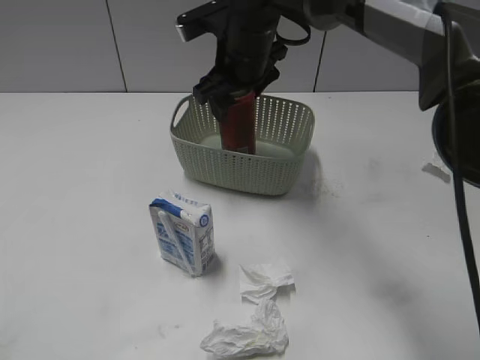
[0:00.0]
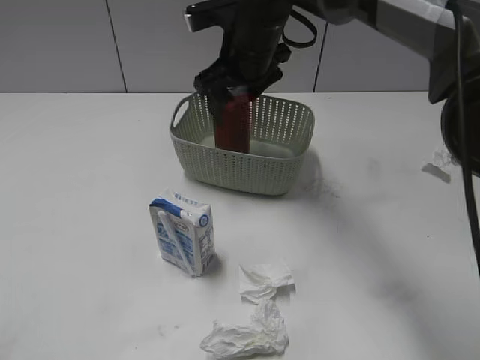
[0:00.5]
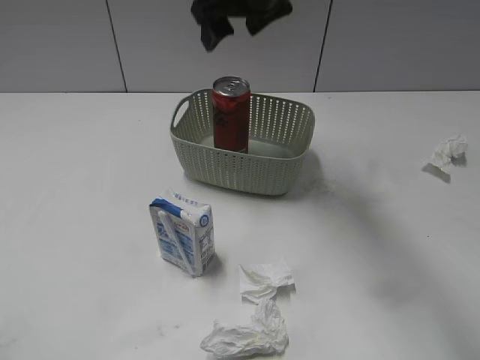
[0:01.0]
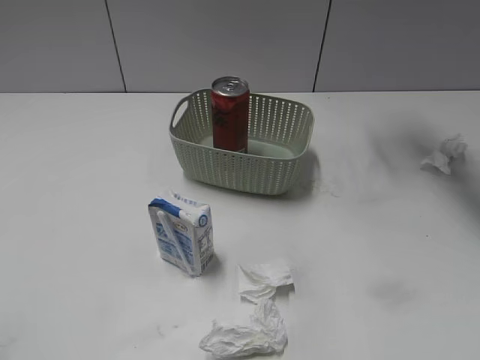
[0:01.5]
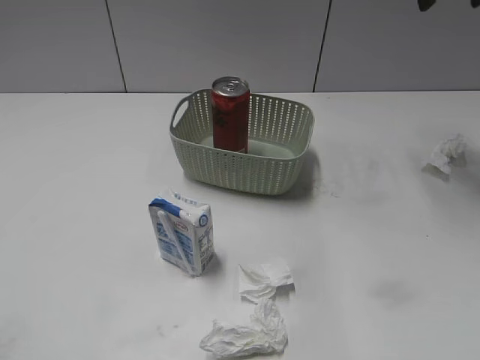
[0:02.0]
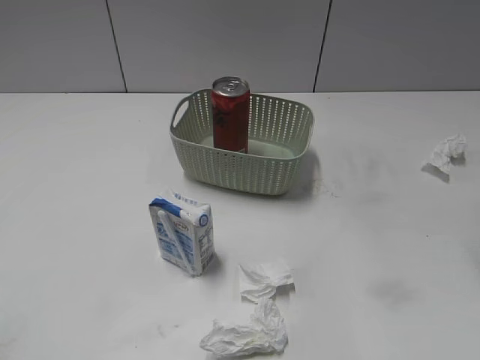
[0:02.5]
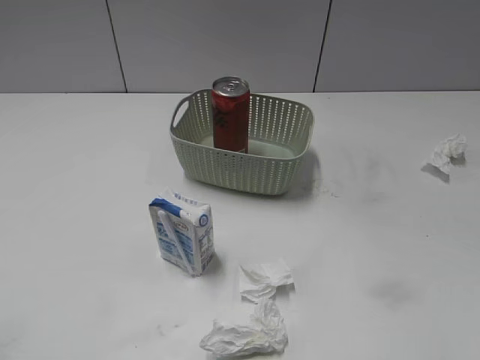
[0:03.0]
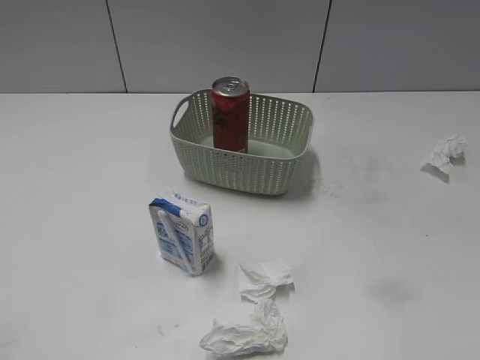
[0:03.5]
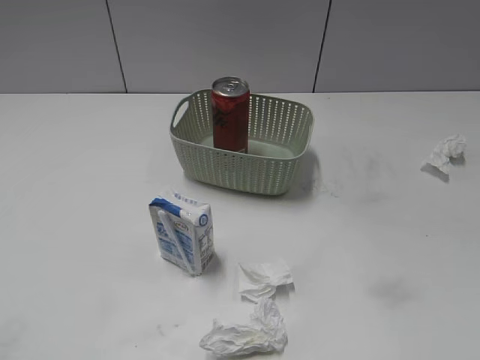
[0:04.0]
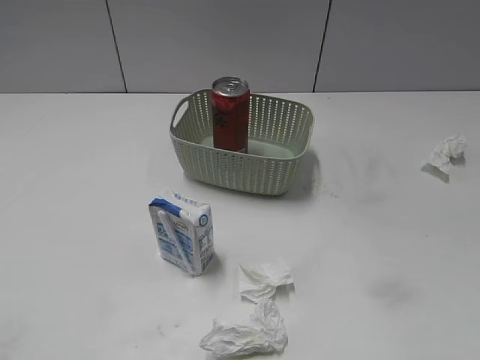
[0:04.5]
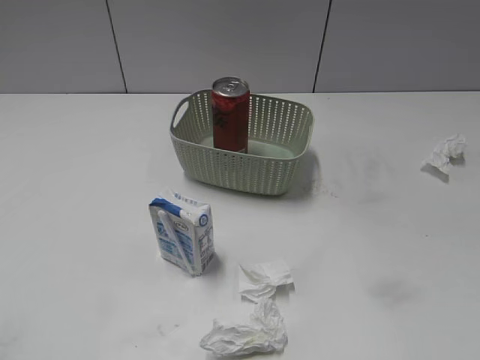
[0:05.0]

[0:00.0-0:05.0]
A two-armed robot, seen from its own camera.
0:00.0 to 0:02.5: The right gripper moves to the right, backward and upward, some 35 cm.

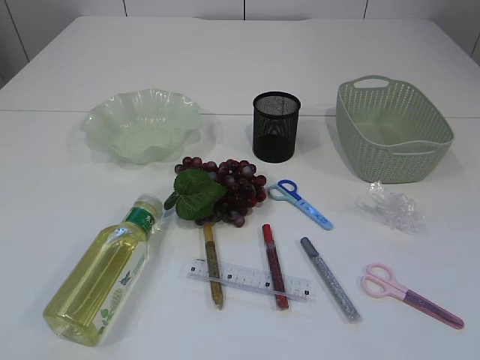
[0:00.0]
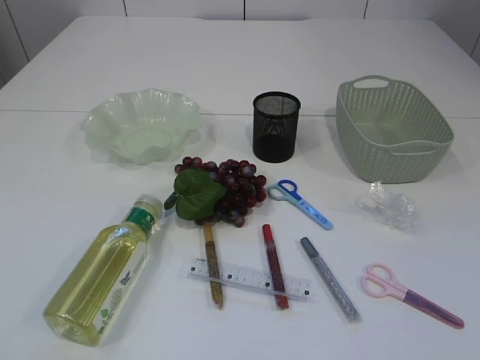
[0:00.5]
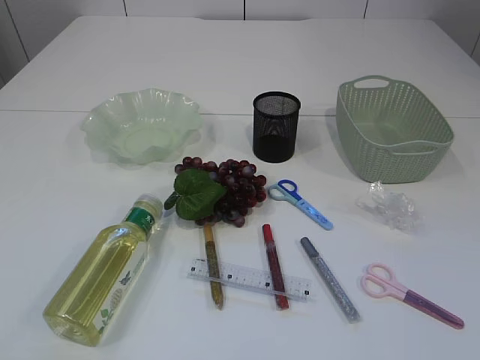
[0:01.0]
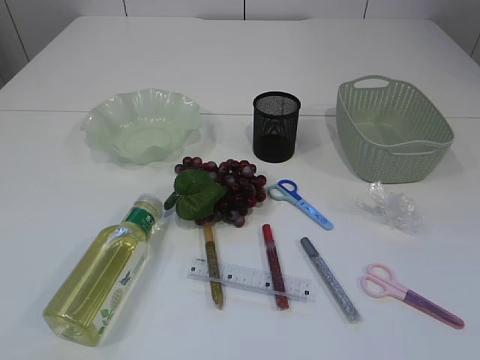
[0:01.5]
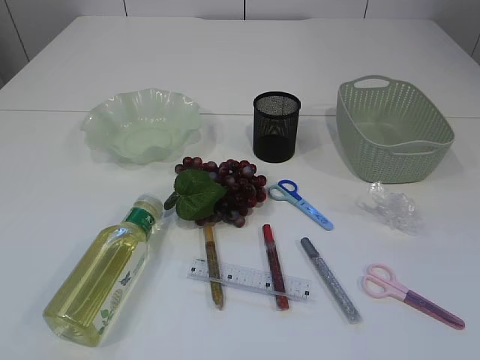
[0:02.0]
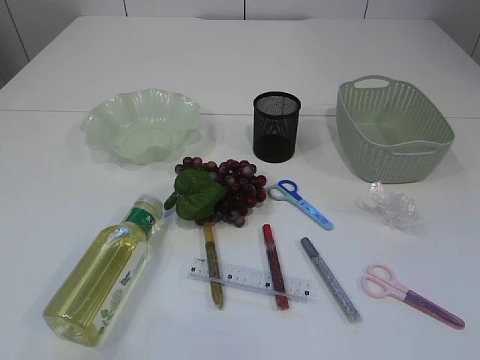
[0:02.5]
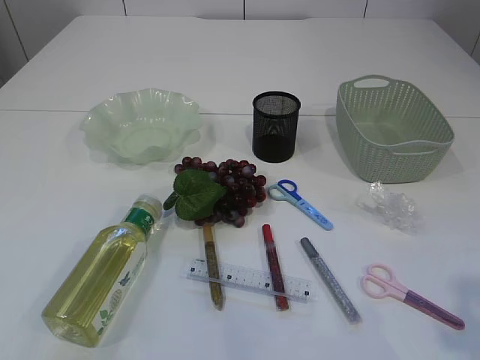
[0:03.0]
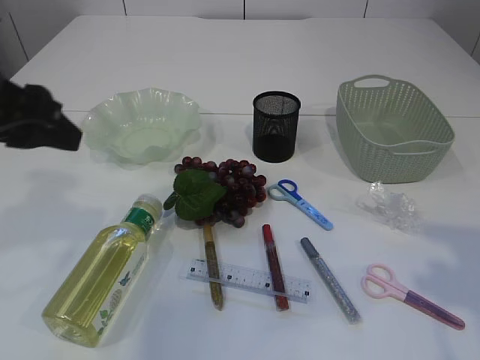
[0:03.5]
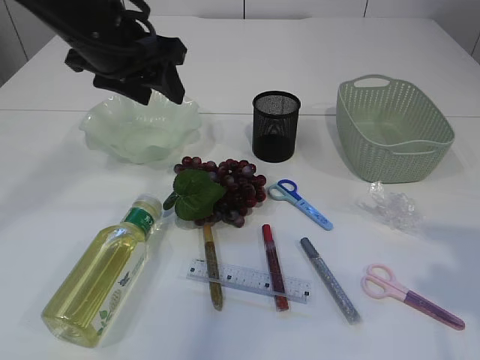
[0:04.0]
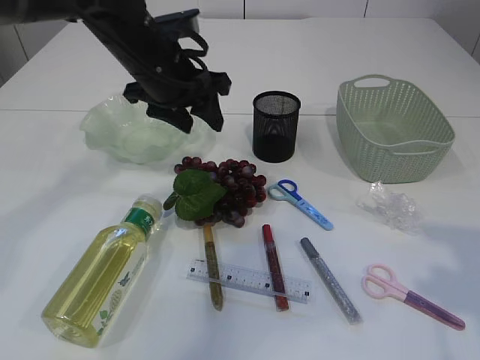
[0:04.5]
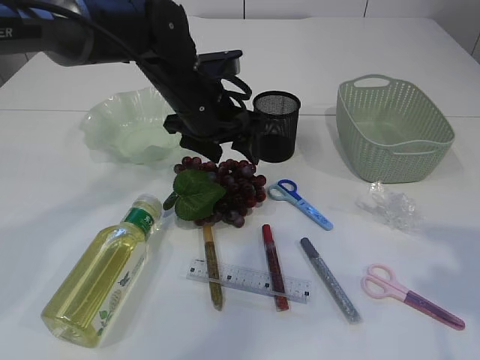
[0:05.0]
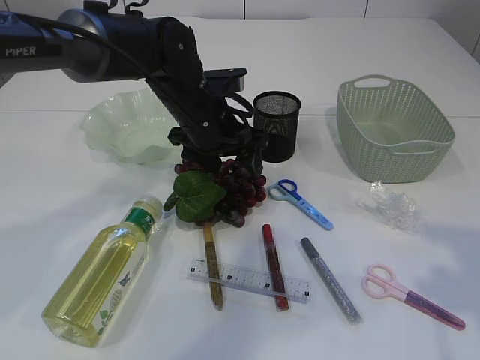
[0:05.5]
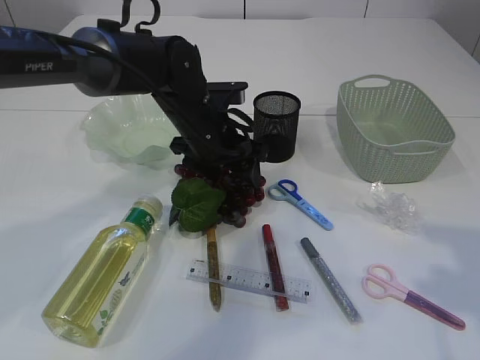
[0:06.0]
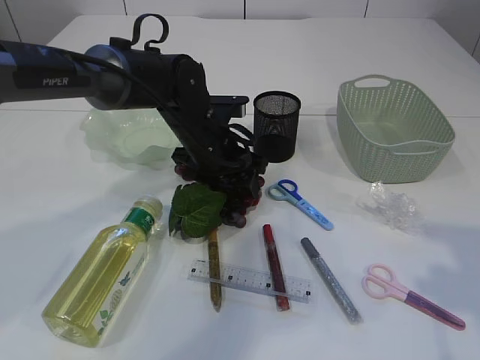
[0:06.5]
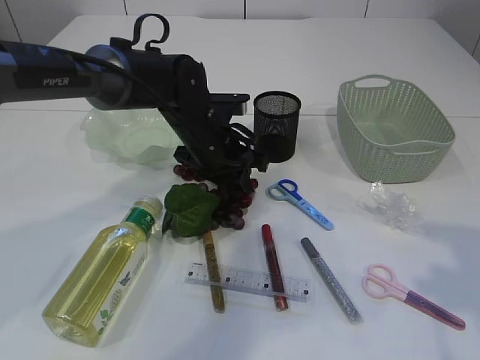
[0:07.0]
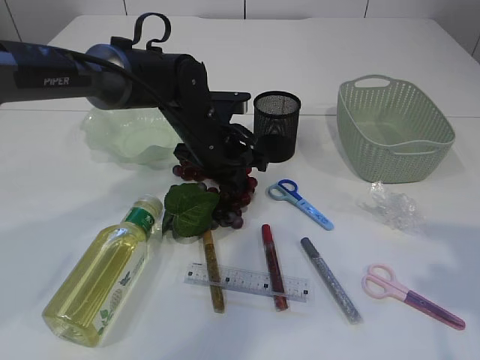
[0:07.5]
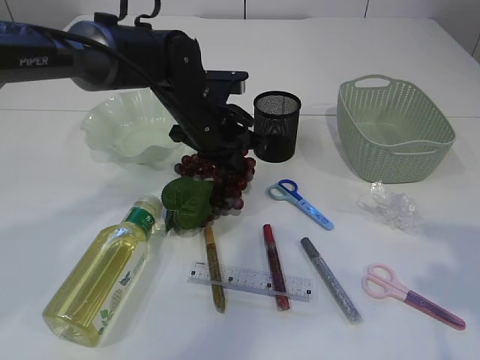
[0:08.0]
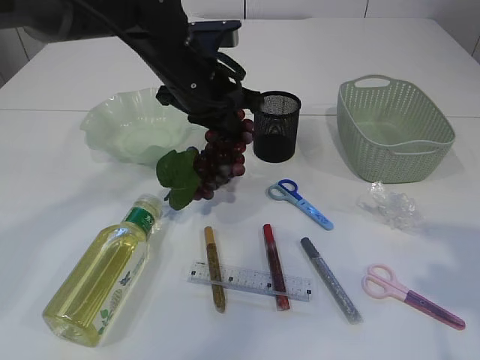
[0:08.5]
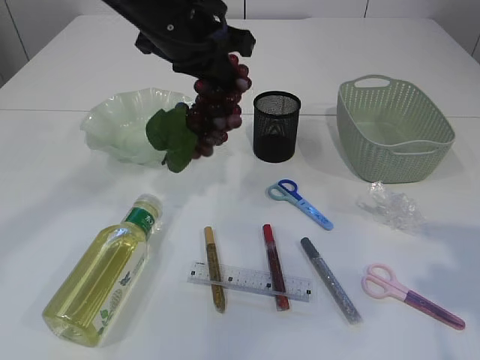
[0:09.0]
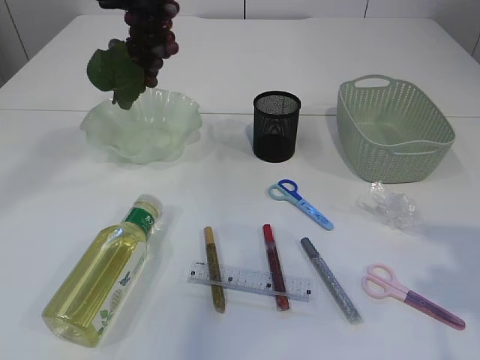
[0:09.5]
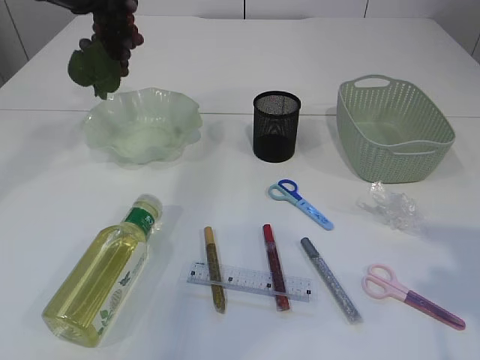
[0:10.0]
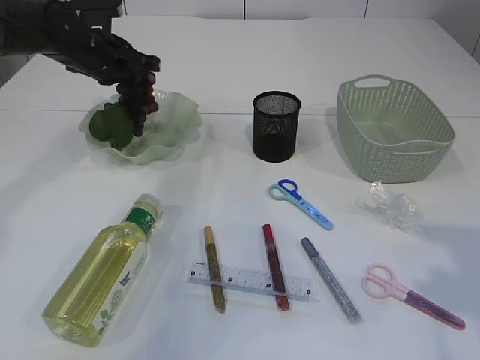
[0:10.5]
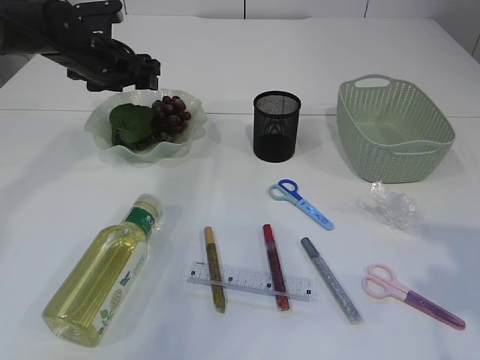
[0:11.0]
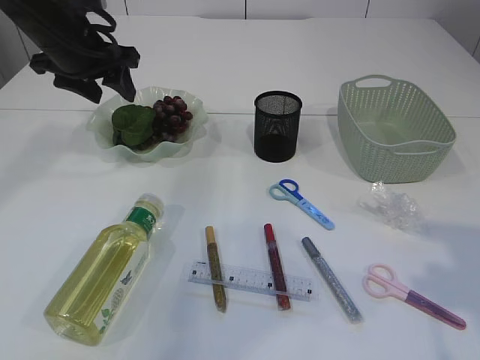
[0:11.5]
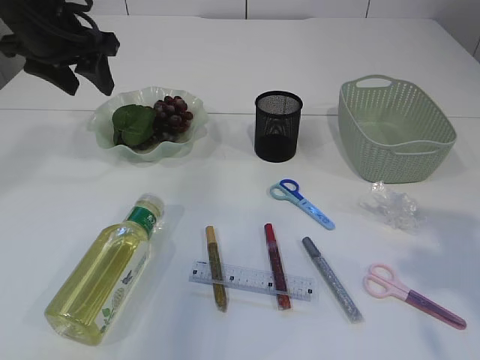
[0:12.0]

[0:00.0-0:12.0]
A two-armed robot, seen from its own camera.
Step, 0:00.0 to 0:08.5: Pick up the grapes.
Step, 0:09.0 to 0:11.5: Place the grapes in the plate.
0:02.0 to 0:04.0: The left gripper shifts roughly 40 cm forward and to the right, while the right gripper goes some 15 cm forward.
0:04.0 to 0:06.0: The left gripper shifts roughly 15 cm downward and to the right.
0:06.0 to 0:08.0: The left gripper closes its fingers.
0:08.0 to 0:10.0: The left gripper heads to the left and upward, covering some 20 cm.
0:10.0 to 0:12.0: The left gripper reaches some 10 cm downward, then returns, and opens its fingers.

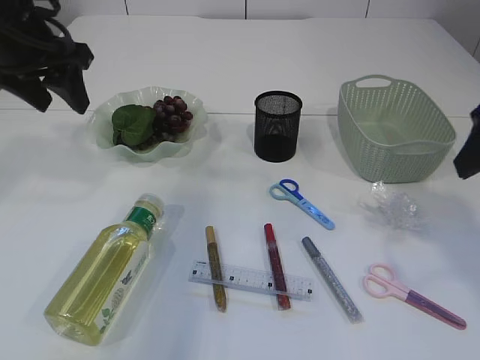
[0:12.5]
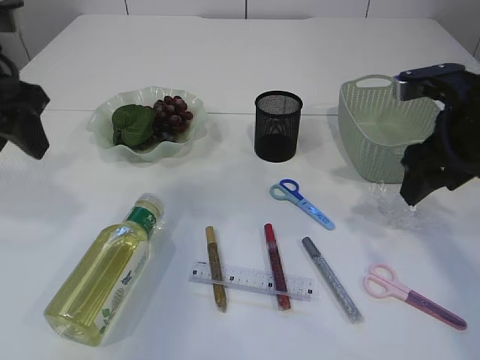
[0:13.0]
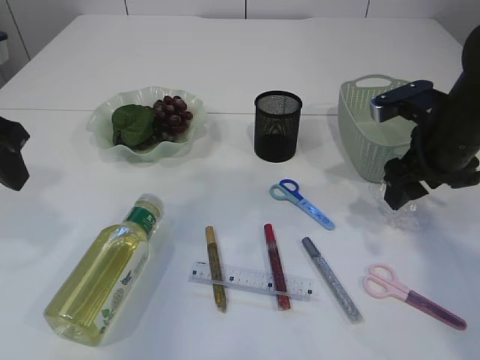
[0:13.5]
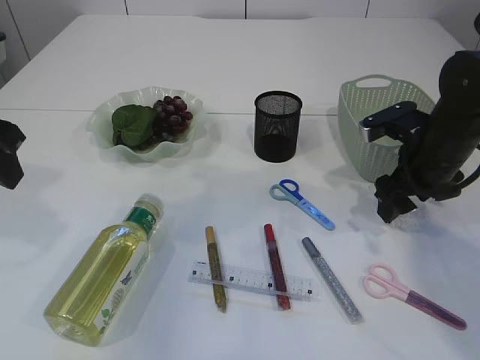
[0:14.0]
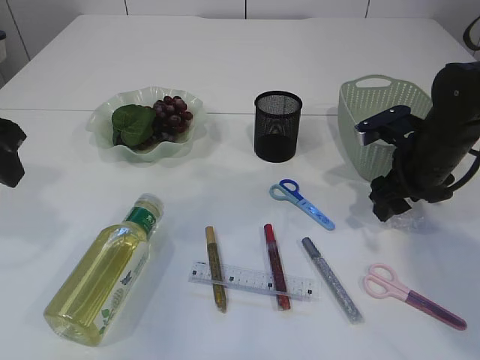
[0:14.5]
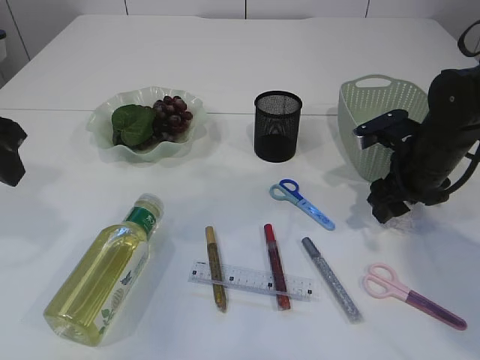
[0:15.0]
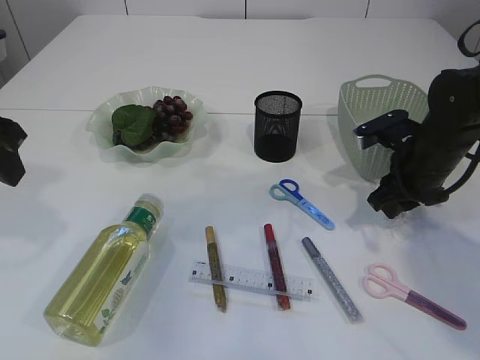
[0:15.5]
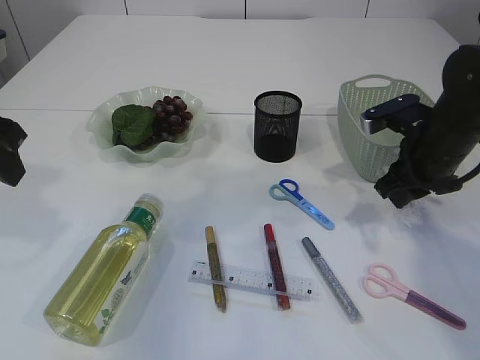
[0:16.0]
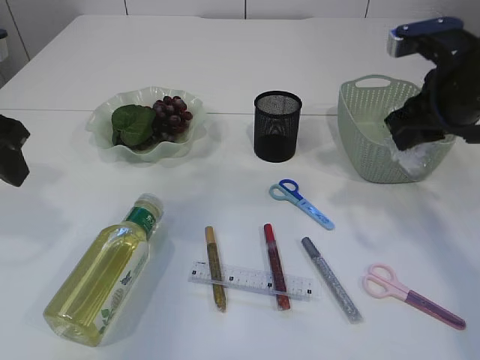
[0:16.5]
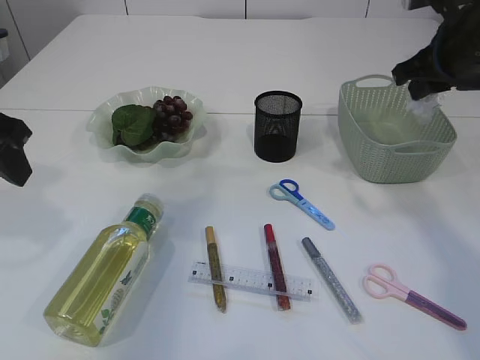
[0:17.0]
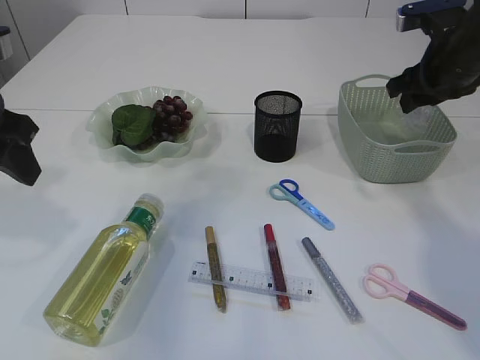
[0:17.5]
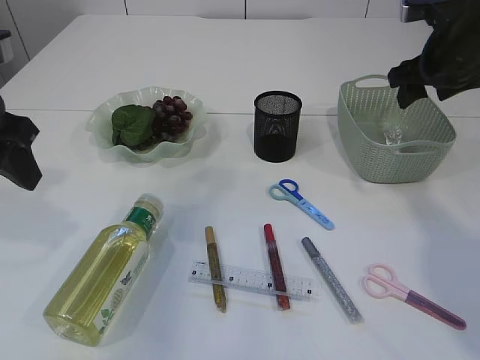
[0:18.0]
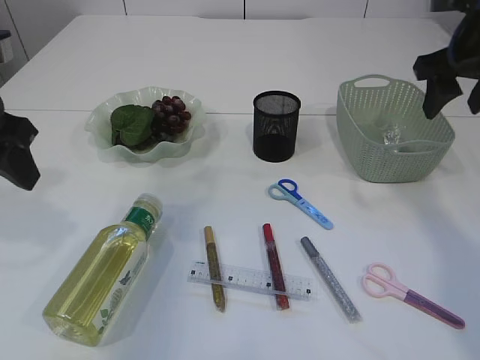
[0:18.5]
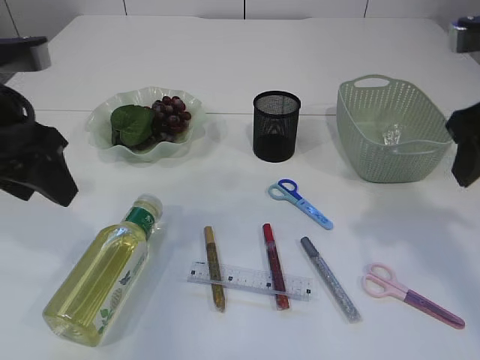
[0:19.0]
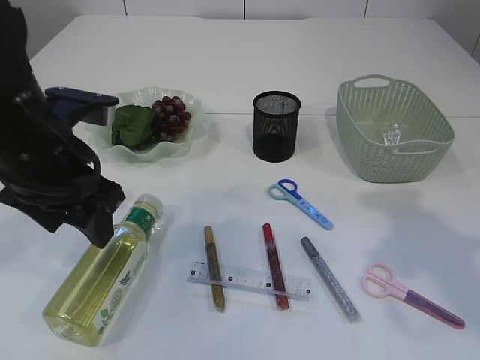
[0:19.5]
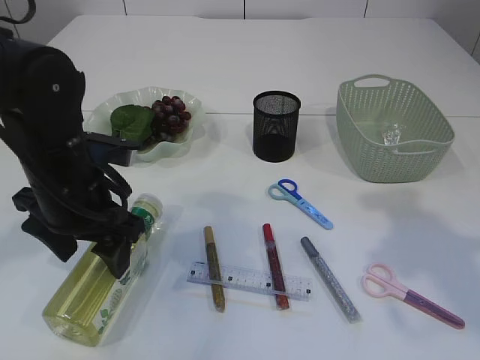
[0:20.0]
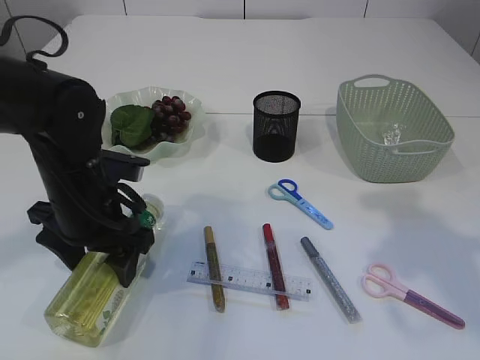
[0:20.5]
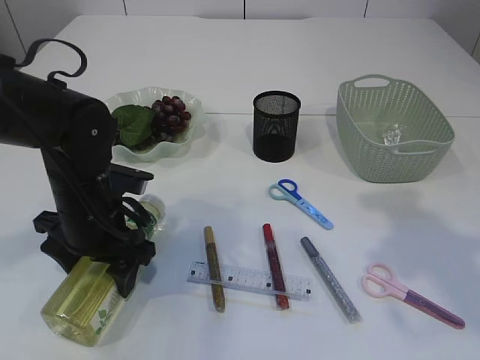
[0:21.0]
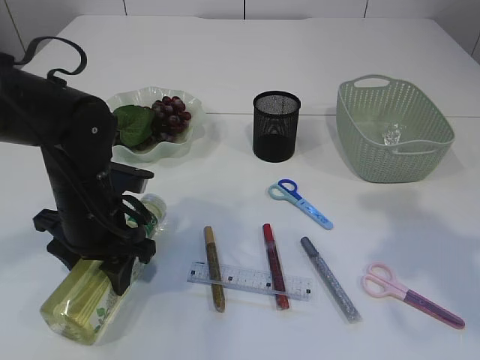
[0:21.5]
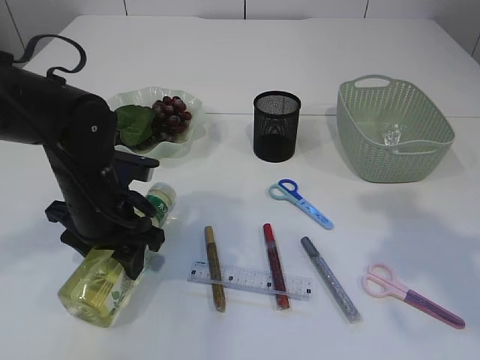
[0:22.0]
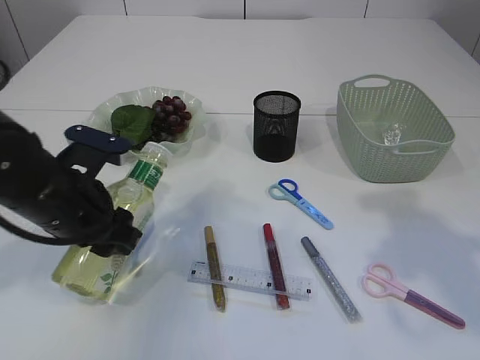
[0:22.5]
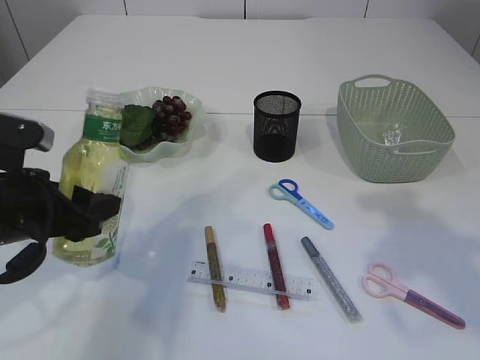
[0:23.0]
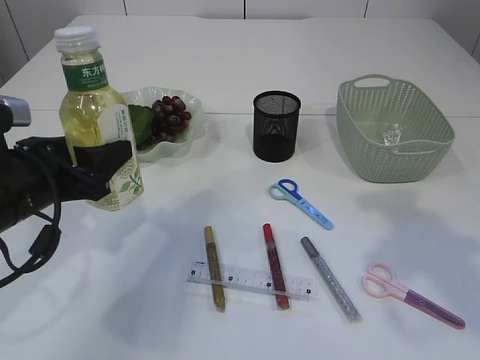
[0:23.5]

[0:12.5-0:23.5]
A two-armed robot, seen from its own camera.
Step, 0:12.5 to 0:16.0: Pick up the plastic.
Step, 0:16.5 to 0:18.0: Place the plastic in the basket.
Step, 0:18.5 to 0:22.5: Pick up the bottle with the left arm.
0:12.5 to 0:14.5: The left gripper shifts approximately 10 cm backward. Meanwhile the right gripper travels downward and forward by about 20 cm.
0:14.5 to 0:16.0: The right gripper closes its fingers.
0:16.0 to 0:18.0: The right gripper is displaced upward and forward by roughly 10 cm, and opens up.
0:18.0 to 0:20.0: The left gripper moves downward and to the right, approximately 15 cm. The right gripper moves backward, some 20 cm.
0:20.0 to 0:21.5: The left gripper is displaced downward by approximately 5 cm.
0:21.5 to 0:23.5: The left gripper moves to the left, approximately 5 cm.
